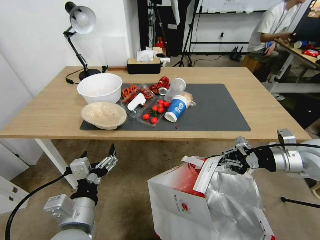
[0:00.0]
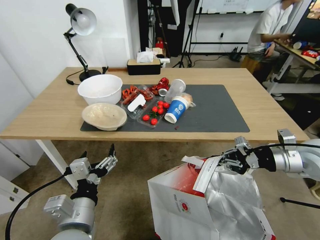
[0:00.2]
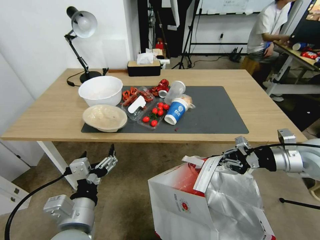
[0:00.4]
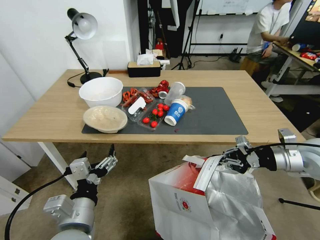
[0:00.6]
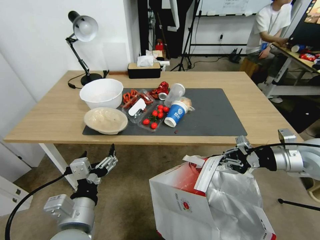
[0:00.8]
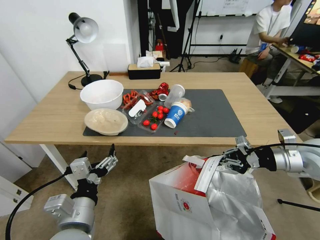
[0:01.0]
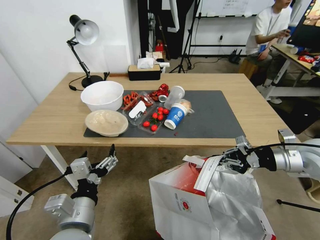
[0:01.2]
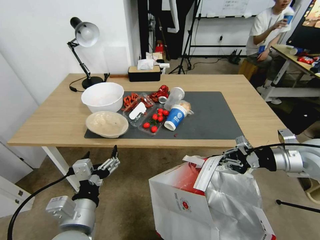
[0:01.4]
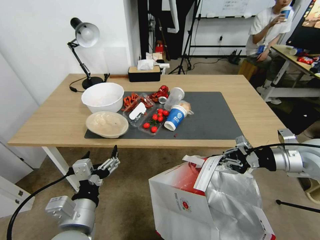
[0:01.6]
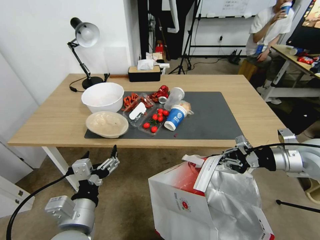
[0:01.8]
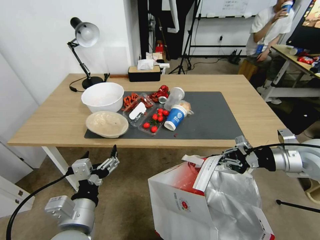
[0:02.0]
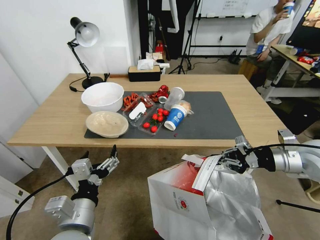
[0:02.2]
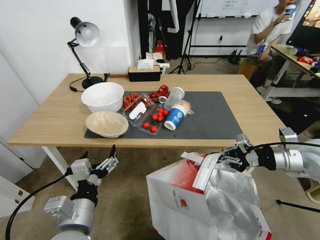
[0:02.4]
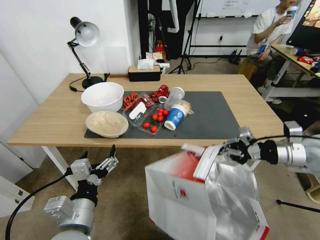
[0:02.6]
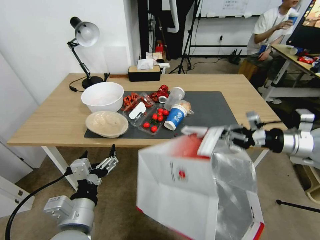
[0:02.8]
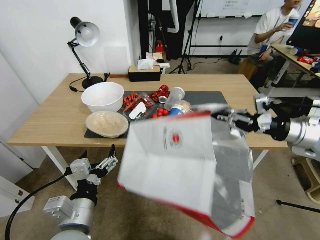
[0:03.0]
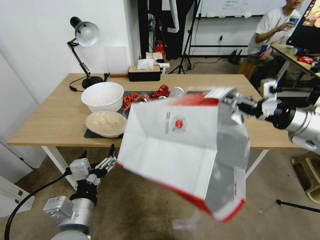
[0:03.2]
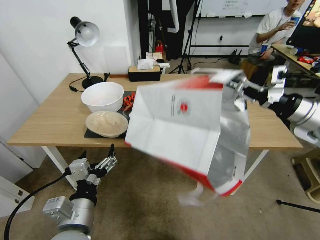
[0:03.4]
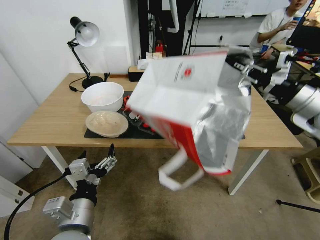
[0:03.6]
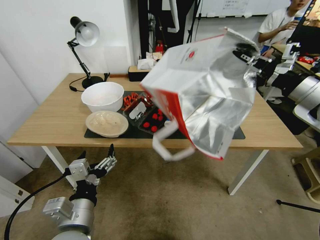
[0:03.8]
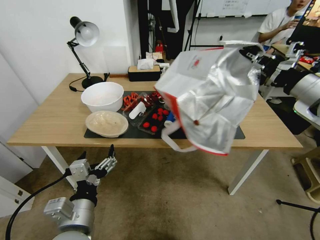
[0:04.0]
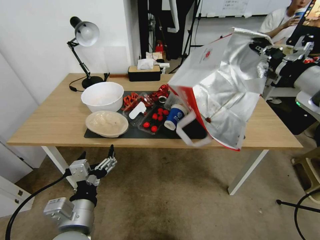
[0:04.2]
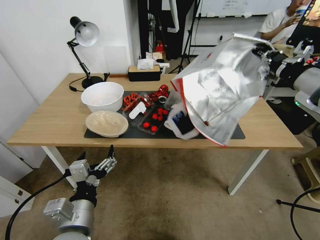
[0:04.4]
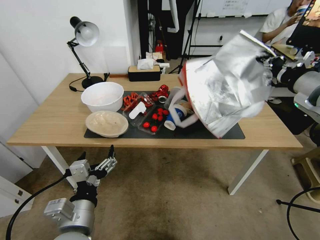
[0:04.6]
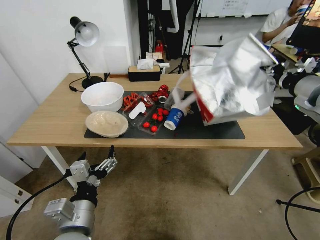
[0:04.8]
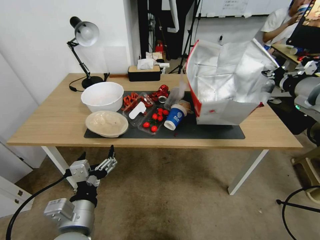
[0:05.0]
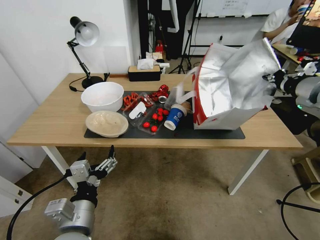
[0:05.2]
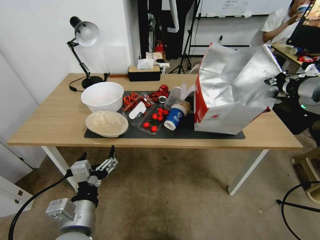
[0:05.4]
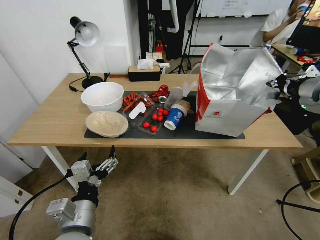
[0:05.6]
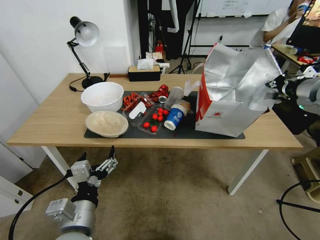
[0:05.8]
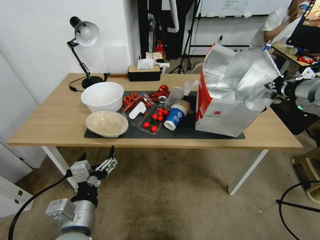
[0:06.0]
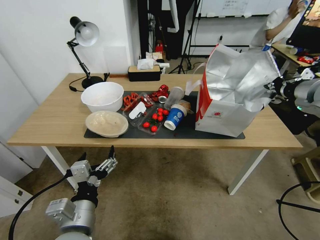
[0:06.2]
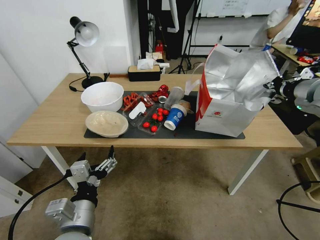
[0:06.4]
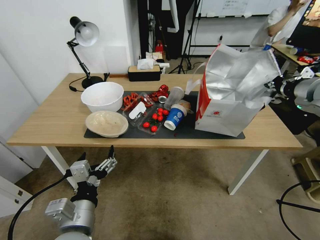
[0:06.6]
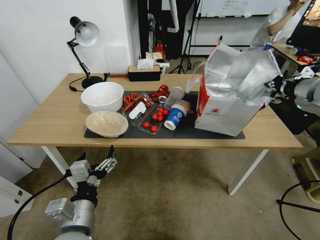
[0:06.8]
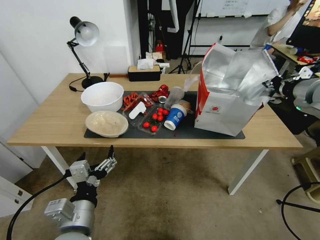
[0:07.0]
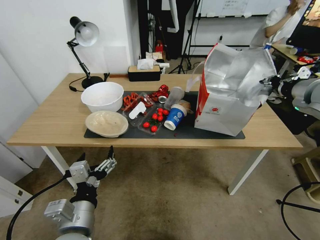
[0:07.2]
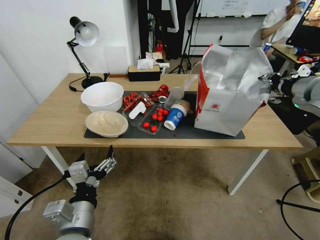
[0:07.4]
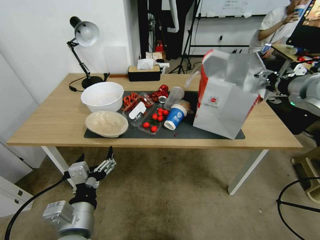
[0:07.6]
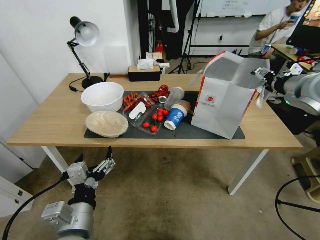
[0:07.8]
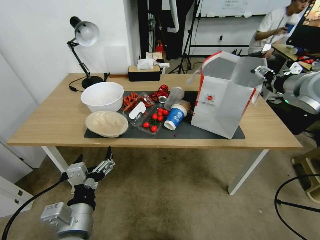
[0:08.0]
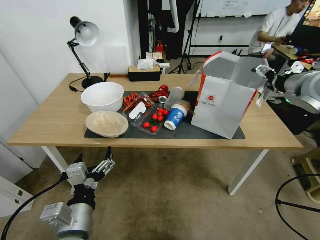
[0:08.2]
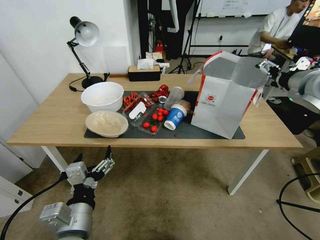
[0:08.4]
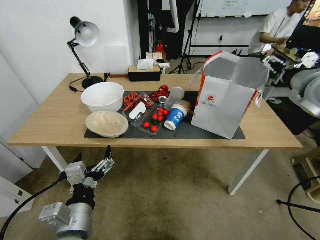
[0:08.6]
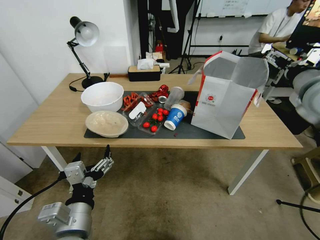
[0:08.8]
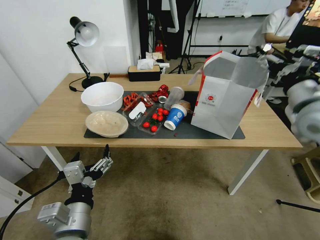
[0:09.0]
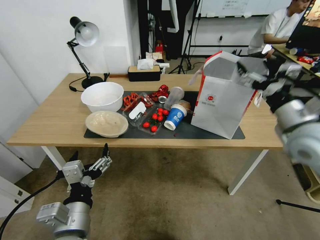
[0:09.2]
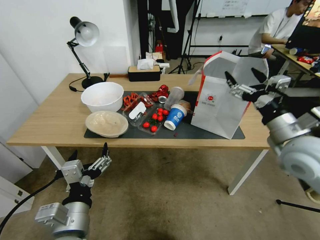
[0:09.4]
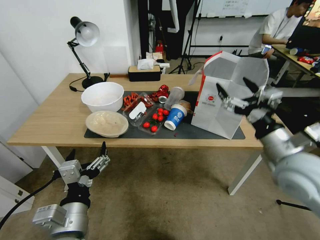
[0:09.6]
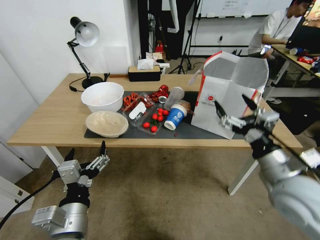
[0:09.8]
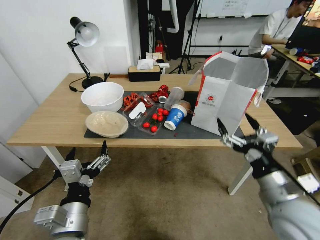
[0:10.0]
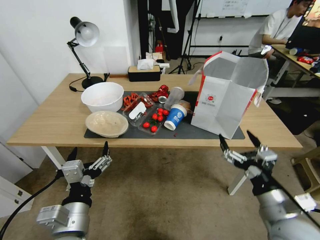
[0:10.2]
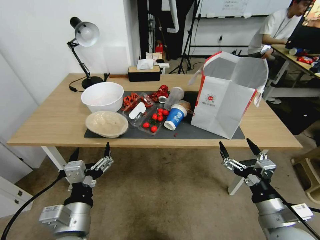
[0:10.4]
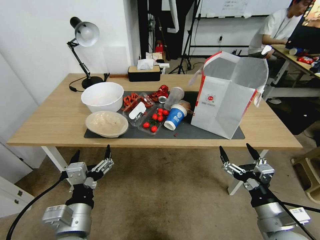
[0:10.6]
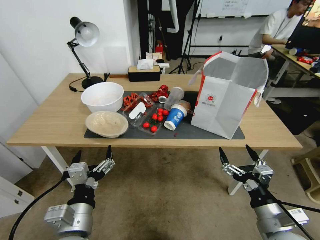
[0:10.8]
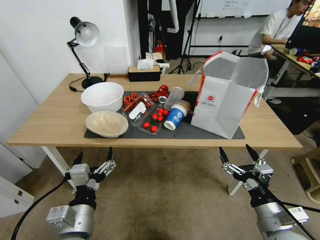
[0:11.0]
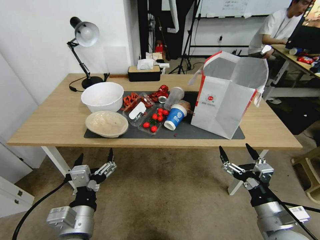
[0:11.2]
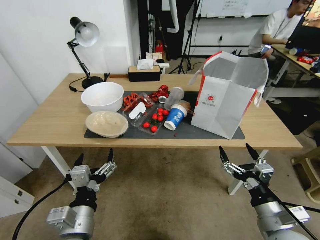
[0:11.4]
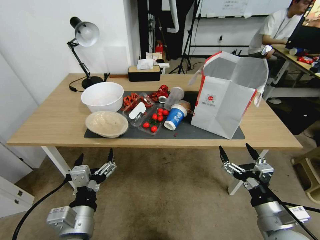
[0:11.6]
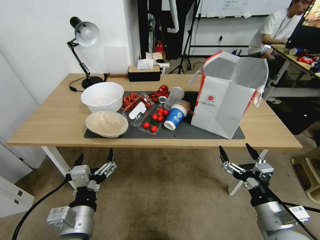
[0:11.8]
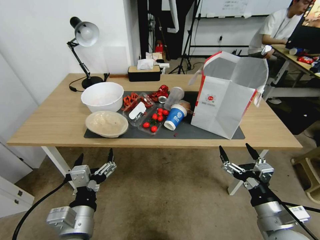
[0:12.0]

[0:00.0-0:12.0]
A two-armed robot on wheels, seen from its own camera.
Task of the whole recording: Pick up the food delivery bag from the floor and place it on the table.
0:01.6 to 0:03.0: The right gripper shifts roughly 5 cm upward.
0:03.0 to 0:04.4: The right gripper heads upward, covering roughly 10 cm.
0:06.0 to 0:07.6: The right gripper opens its fingers.
0:07.6 to 0:09.0: The right gripper heads backward, covering some 5 cm.
0:09.0 to 0:10.4: The right gripper shifts some 30 cm downward and backward.
0:10.4 to 0:12.0: The grippers stay close to where they were, moving slightly.

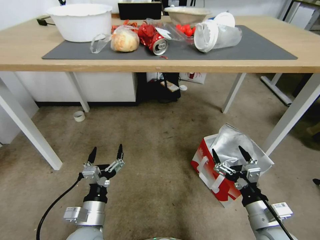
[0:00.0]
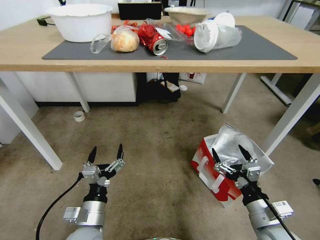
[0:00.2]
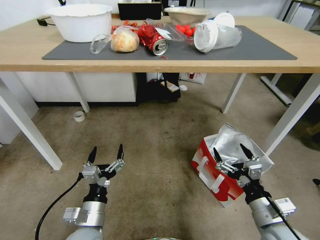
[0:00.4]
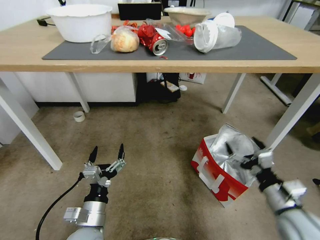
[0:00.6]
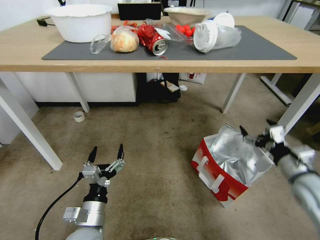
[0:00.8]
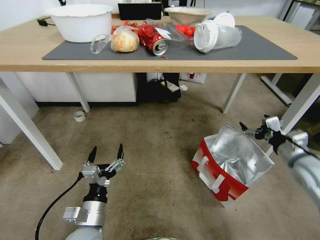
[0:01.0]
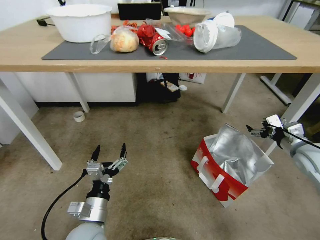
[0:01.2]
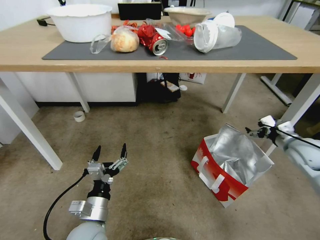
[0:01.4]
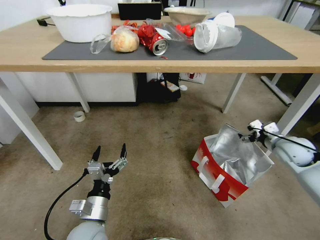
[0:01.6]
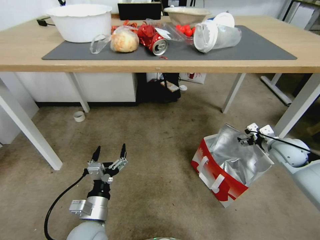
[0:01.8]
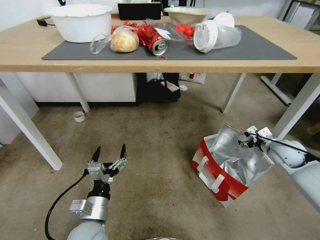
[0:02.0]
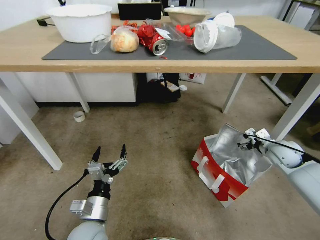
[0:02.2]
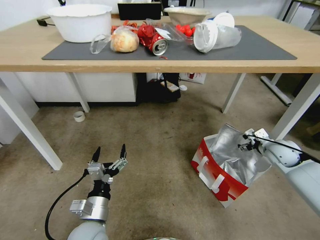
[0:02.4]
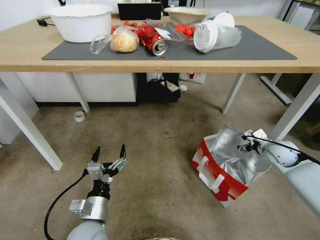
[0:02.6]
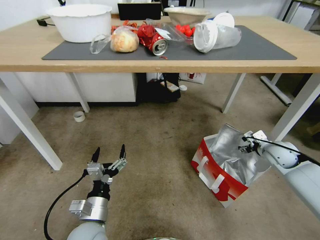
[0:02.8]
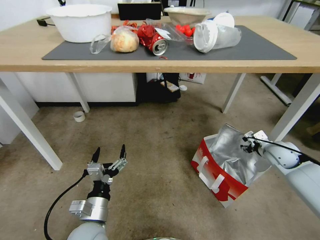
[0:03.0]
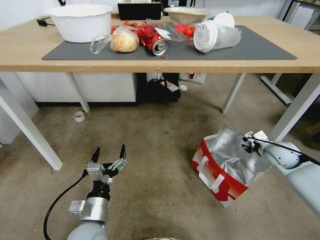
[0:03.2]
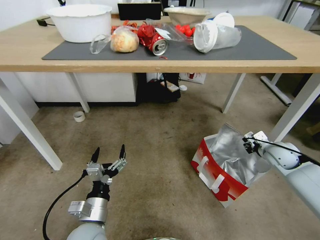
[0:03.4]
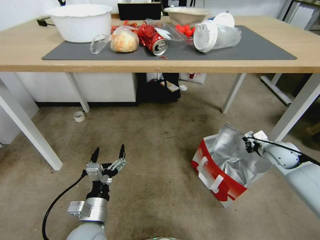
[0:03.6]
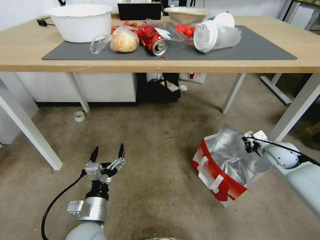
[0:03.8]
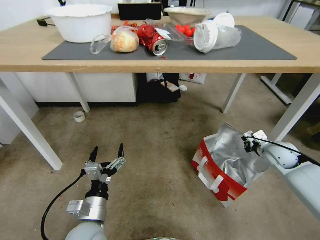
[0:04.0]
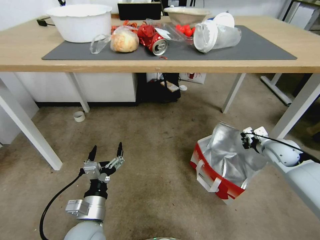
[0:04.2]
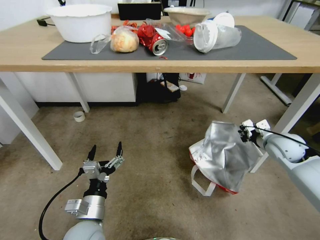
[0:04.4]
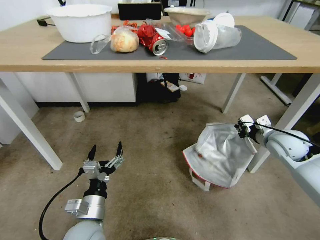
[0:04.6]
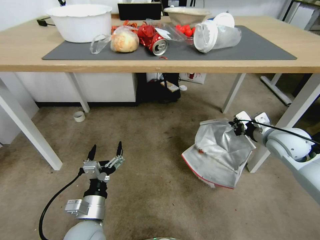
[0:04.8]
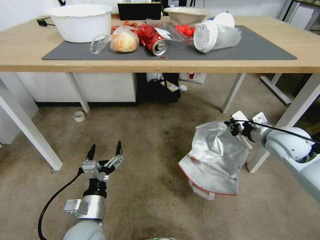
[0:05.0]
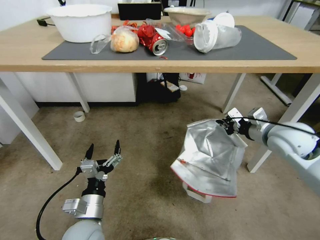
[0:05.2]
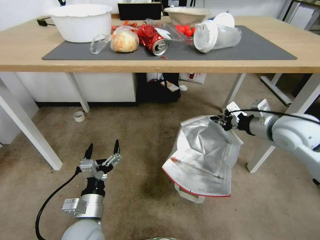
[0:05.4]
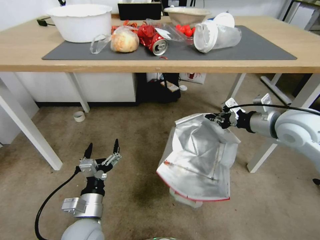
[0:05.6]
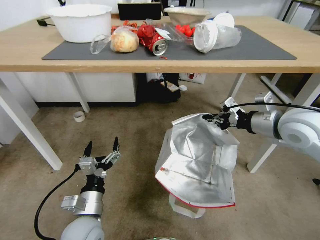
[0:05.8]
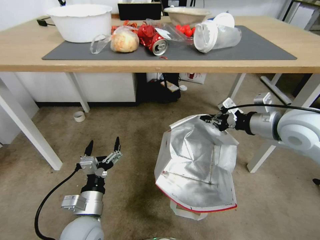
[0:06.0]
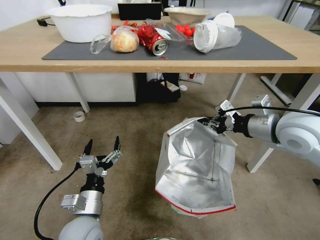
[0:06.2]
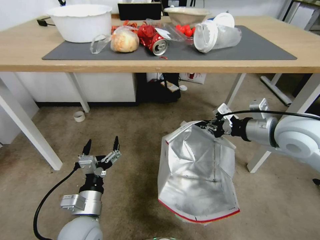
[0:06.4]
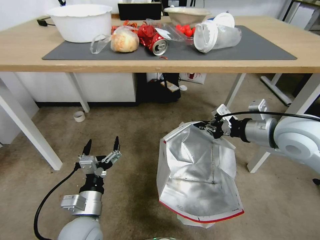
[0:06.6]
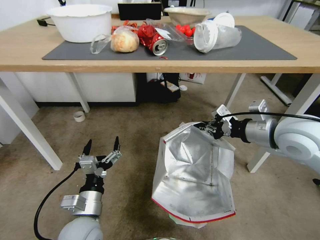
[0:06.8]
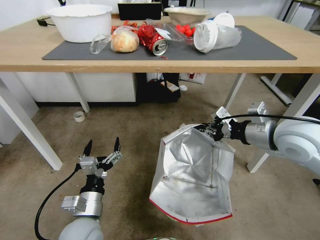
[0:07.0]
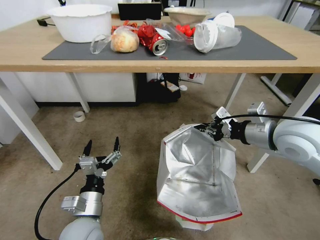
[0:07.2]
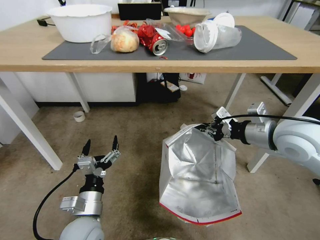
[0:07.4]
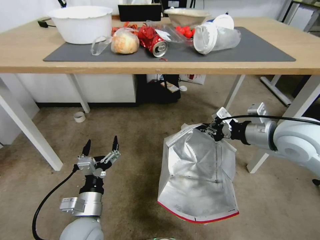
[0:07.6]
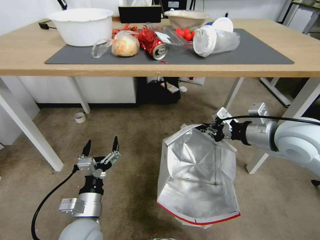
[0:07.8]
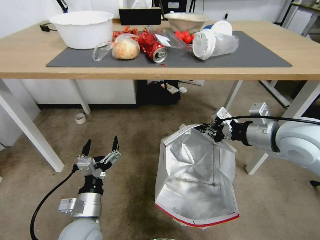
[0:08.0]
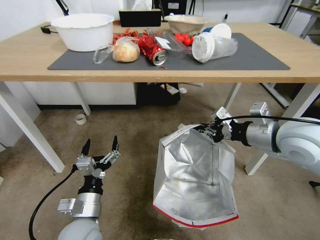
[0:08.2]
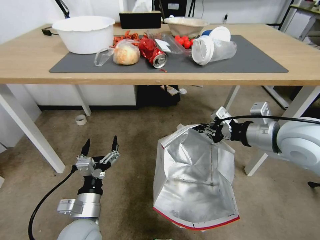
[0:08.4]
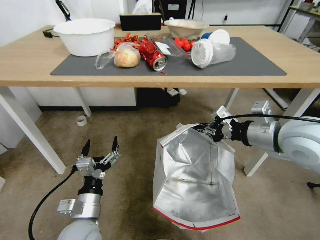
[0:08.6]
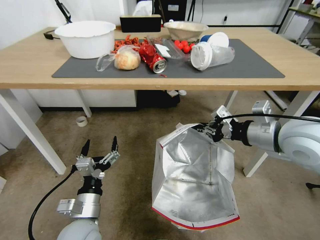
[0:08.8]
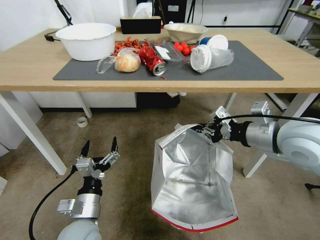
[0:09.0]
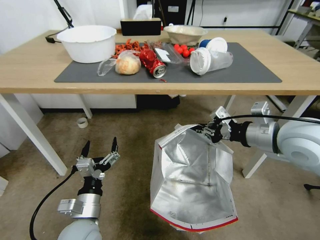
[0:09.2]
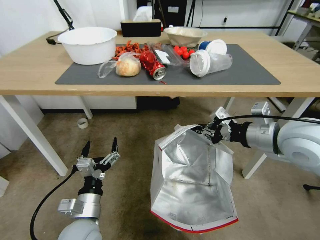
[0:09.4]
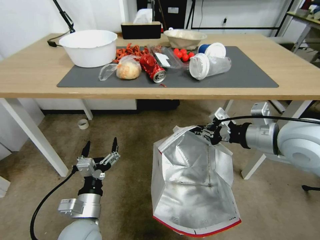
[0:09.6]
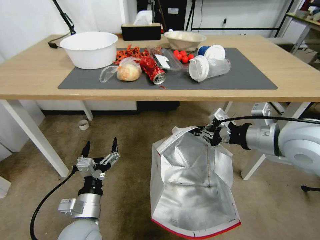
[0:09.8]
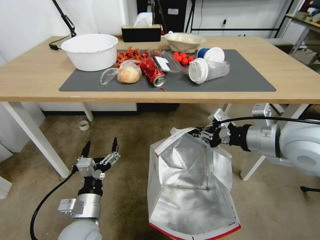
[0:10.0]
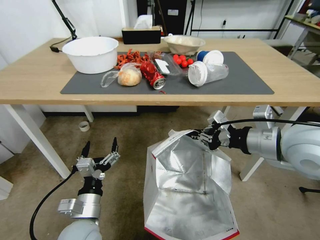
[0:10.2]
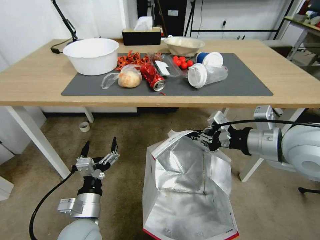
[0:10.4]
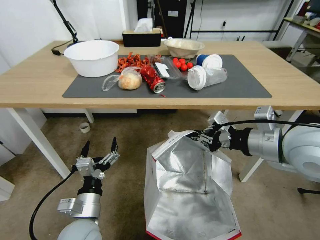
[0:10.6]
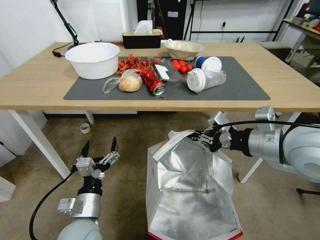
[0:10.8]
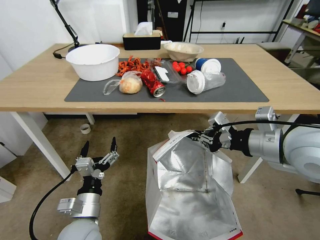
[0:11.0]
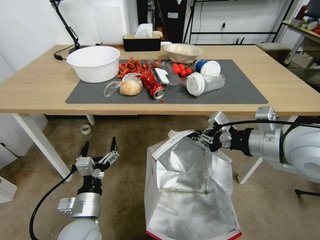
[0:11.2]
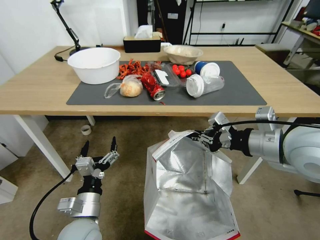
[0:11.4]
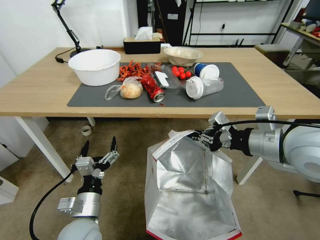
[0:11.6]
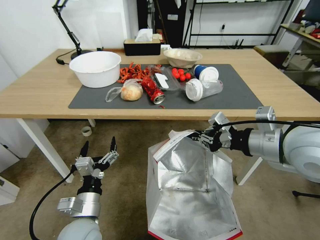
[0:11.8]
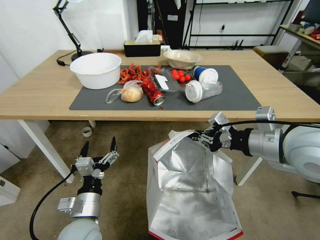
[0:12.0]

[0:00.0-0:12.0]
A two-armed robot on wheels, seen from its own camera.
Task of the whole recording: Pick up the food delivery bag from the floor and place it on the table.
0:00.0 to 0:01.6: The right gripper travels forward and to the right by some 30 cm.
0:01.6 to 0:03.0: The right gripper closes its fingers.
0:03.0 to 0:04.4: The right gripper moves upward, roughly 5 cm, and closes up.
0:04.4 to 0:06.0: The right gripper moves upward and to the left, about 20 cm.
0:06.0 to 0:07.6: The grippers make only small movements.
